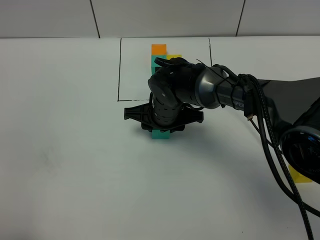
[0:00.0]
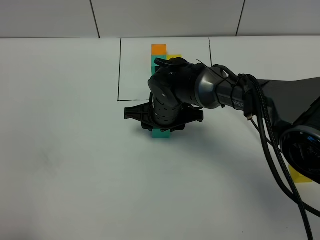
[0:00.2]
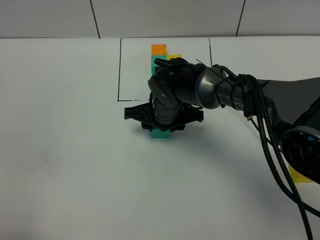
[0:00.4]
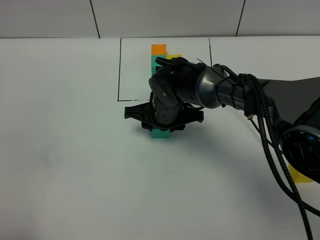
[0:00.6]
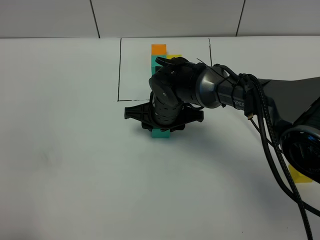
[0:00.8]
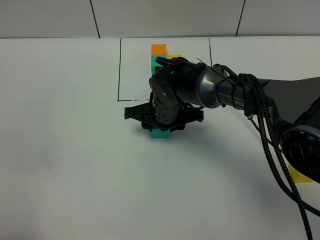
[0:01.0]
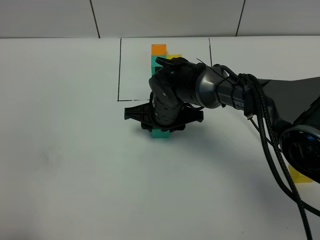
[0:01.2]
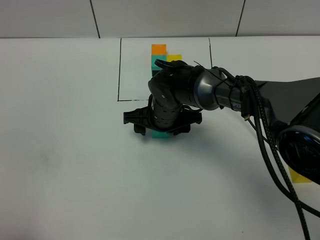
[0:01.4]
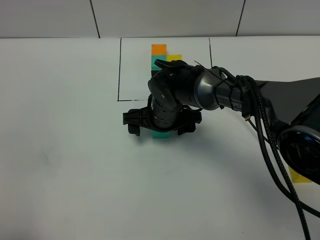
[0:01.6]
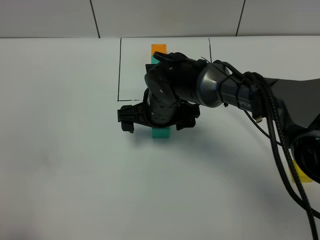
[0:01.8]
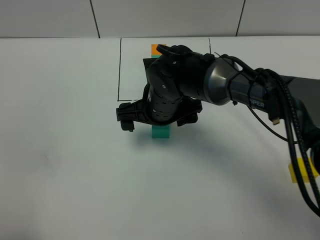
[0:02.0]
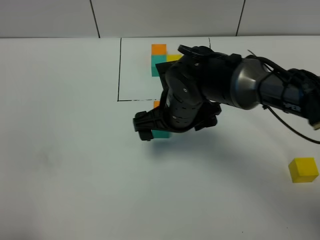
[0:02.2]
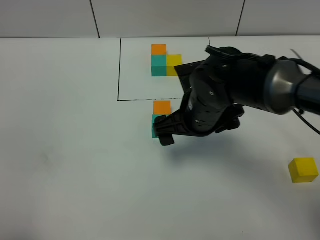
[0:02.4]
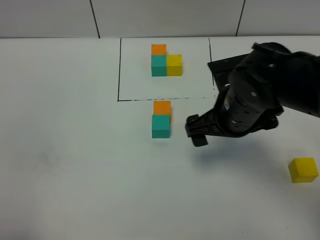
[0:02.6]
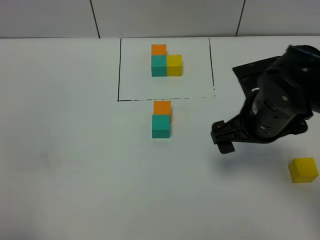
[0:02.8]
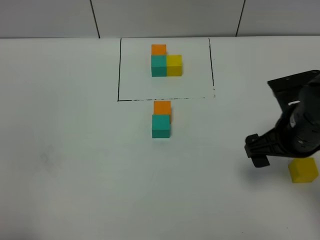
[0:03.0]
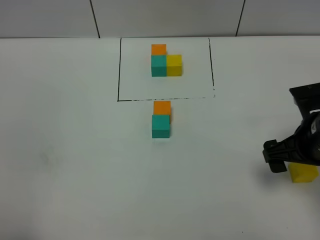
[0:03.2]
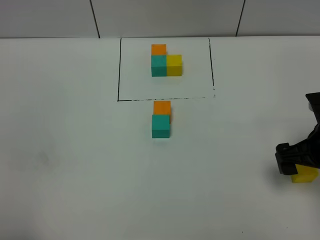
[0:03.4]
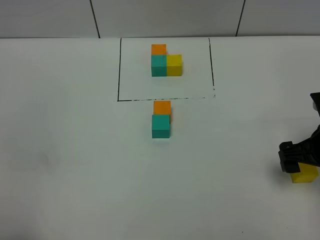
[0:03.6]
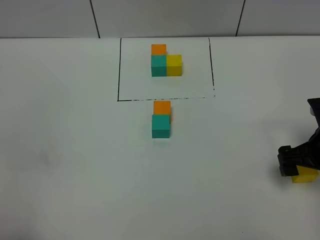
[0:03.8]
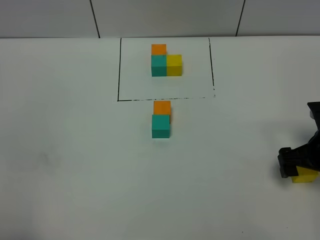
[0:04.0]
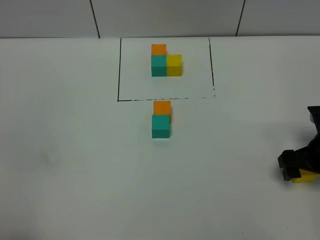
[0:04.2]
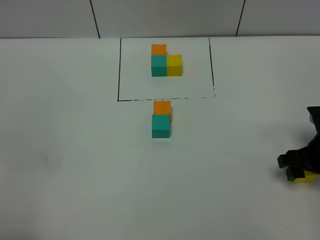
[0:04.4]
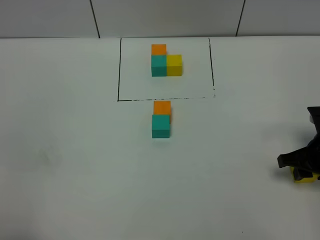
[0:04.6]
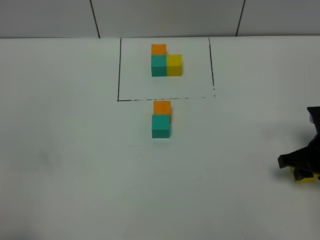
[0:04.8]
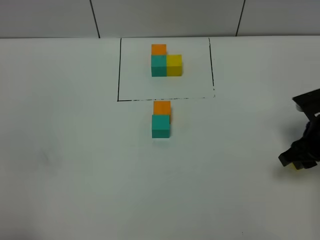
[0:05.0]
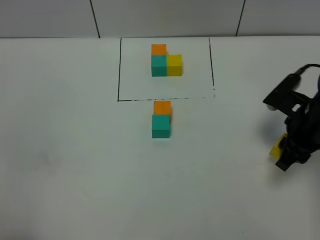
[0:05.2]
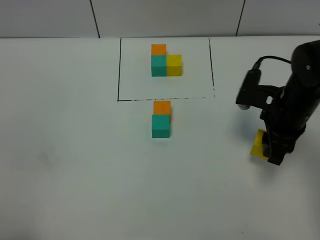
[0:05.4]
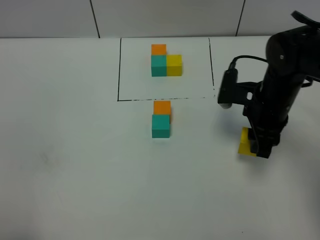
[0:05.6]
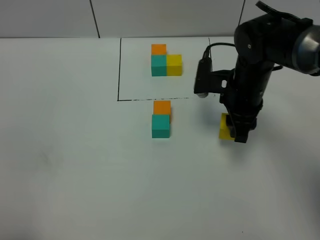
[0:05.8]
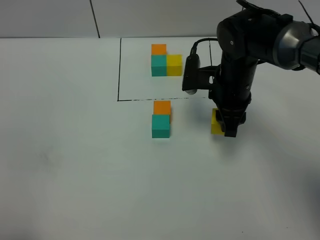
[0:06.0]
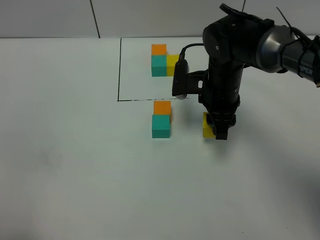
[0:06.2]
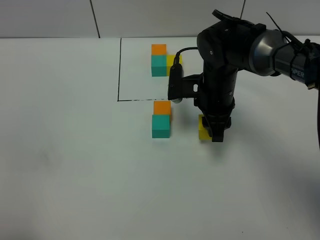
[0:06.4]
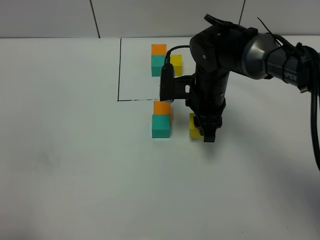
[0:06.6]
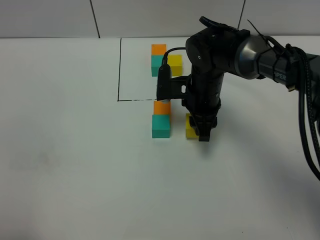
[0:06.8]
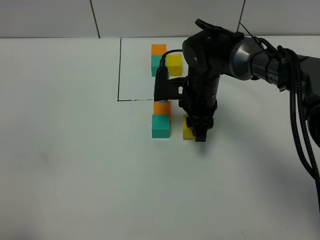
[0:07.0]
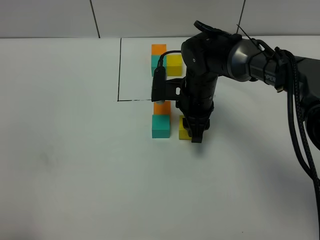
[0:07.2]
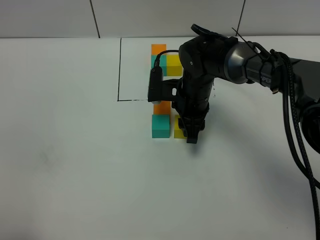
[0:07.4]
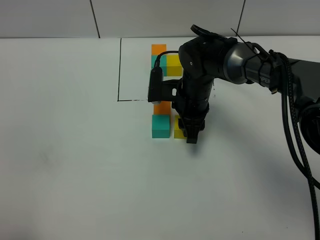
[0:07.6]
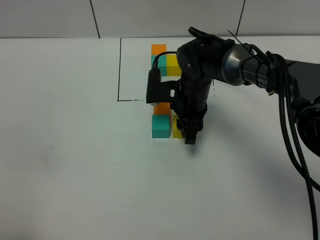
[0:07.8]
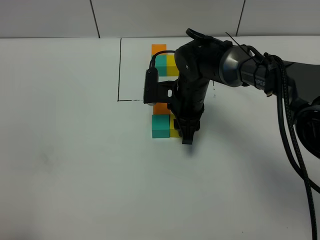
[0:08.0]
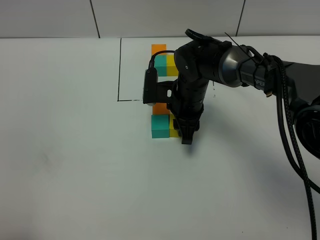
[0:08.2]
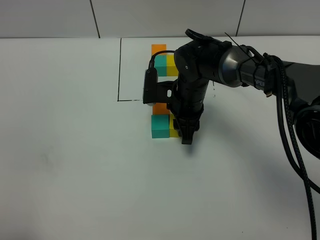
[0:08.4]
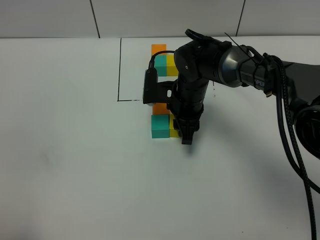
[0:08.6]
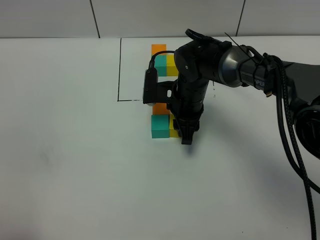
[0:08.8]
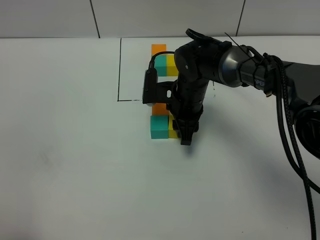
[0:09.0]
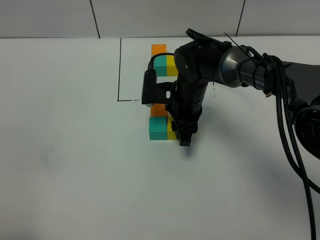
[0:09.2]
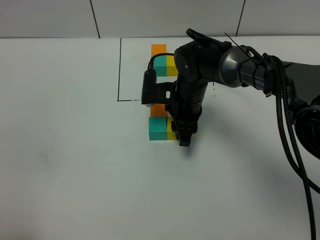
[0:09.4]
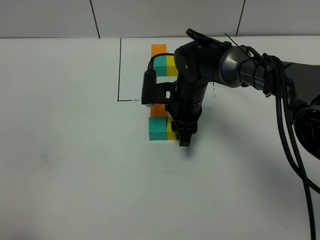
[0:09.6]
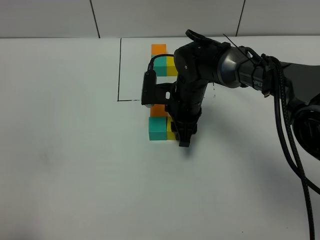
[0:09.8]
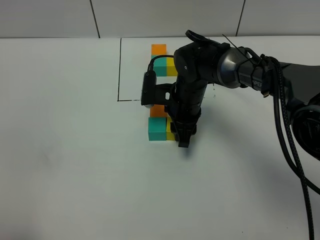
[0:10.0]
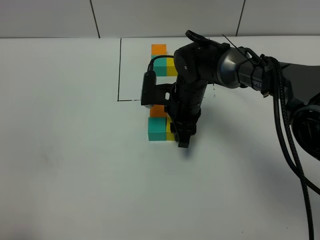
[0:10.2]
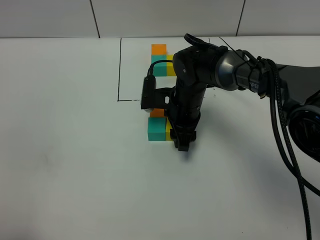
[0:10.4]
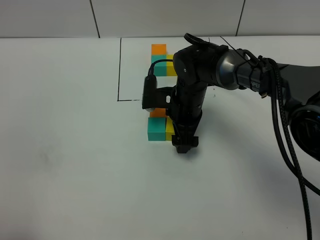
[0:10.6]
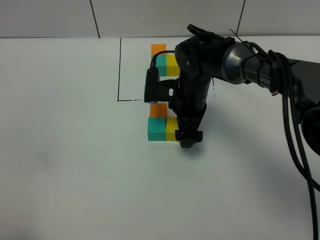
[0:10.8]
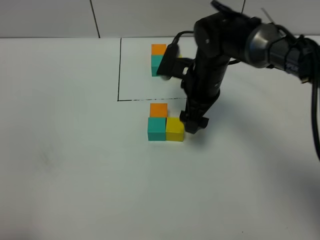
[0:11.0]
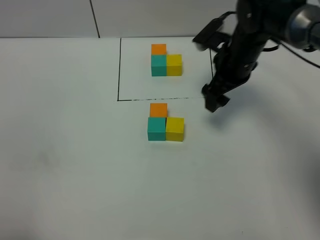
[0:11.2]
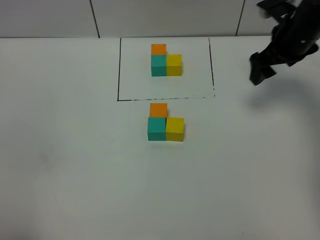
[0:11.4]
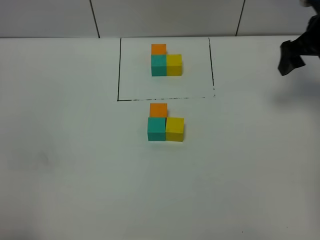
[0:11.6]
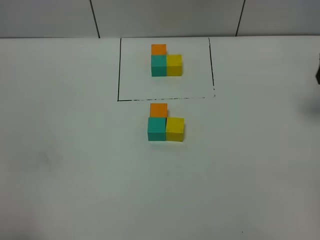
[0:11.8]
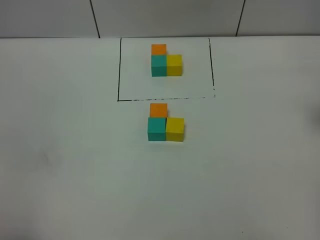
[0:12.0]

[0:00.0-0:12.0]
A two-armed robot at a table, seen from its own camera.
Task of the whole recording: According to the building block template in front, assemble the scattered blocks together.
Step, 0:01.8 to 0:10.6: Put the yellow build block on the right of the green build block.
0:00.0 to 0:01.6: The right gripper opens up.
0:01.6 to 0:03.0: The right gripper goes about 25 cm to the right, backward and upward.
0:03.0 to 0:04.4: The right gripper is displaced downward and to the right by some 10 cm, and closes its fingers.
0:04.4 to 0:06.0: The right gripper is displaced to the left and forward by some 20 cm.
0:06.0 to 0:07.6: The right gripper goes about 10 cm downward and to the left.
0:07.6 to 0:09.0: The two grippers keep their place.
0:09.0 to 0:10.4: Both grippers stay put.
0:10.4 to 0:12.0: The right gripper shifts roughly 35 cm to the right and upward, and opens its fingers.

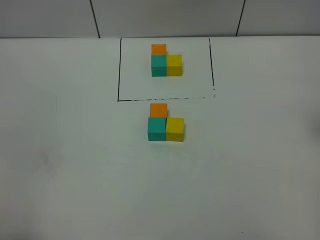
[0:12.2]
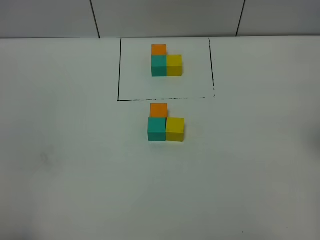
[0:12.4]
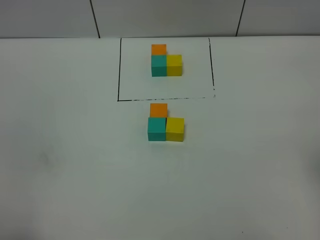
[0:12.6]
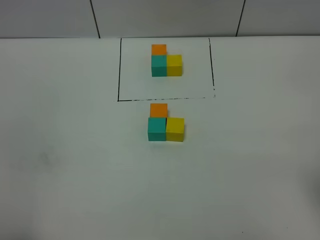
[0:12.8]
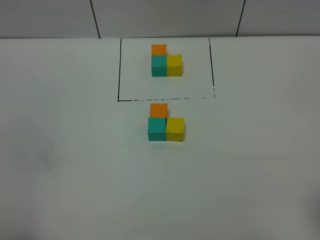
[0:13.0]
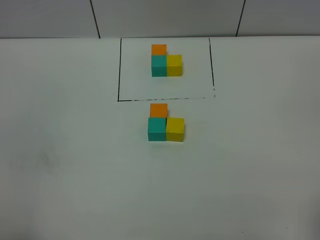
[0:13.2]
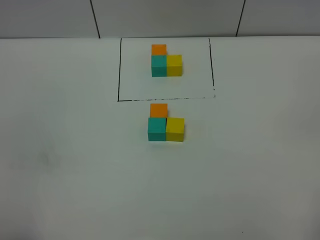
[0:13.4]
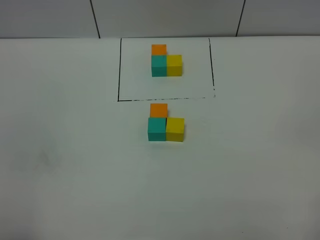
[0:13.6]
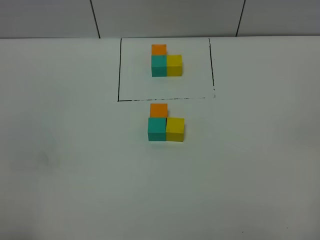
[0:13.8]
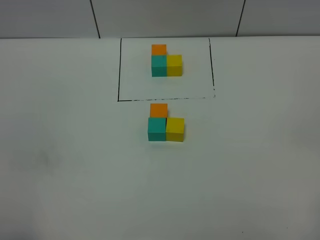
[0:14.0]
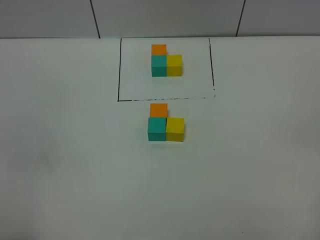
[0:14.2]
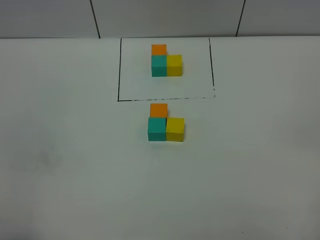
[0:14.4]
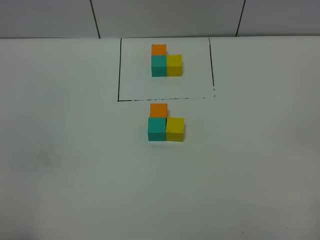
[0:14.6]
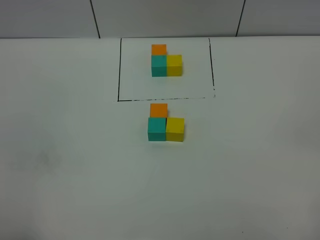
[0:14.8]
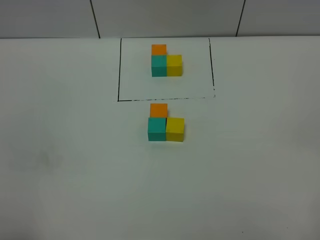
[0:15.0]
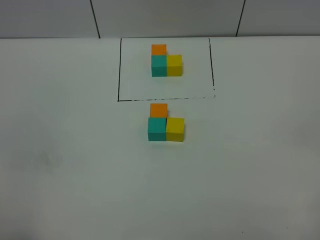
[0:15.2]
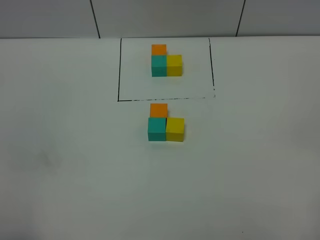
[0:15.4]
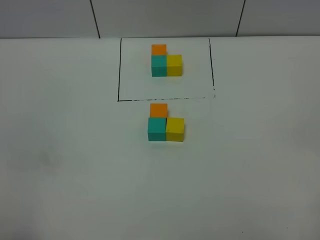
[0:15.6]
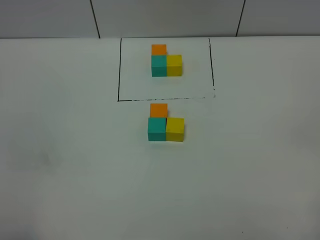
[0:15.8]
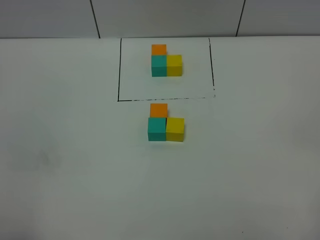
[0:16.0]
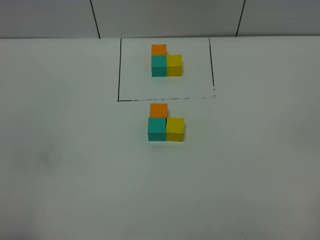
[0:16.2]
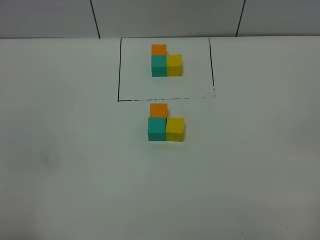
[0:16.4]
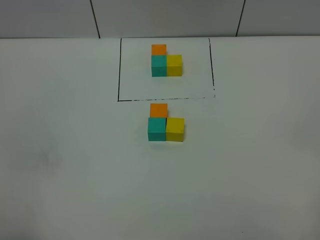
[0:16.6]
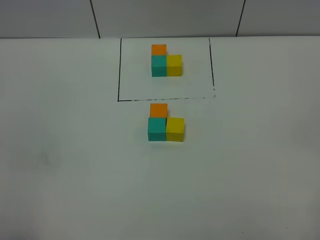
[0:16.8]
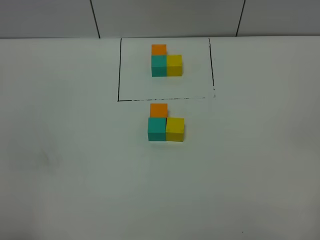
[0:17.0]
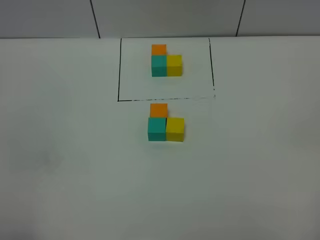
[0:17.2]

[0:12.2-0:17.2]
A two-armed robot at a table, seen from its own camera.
Task of the whole recording: According to the building block template in front, assemble the scattered blocks together.
0:13.8 to 0:17.2: The two grippers keep their place.
